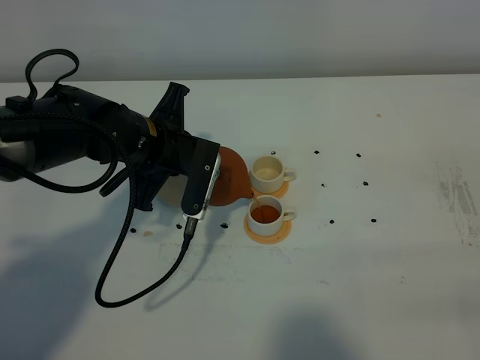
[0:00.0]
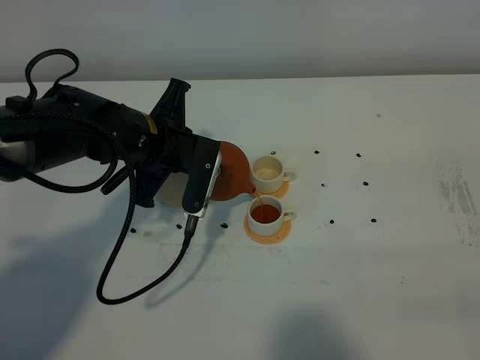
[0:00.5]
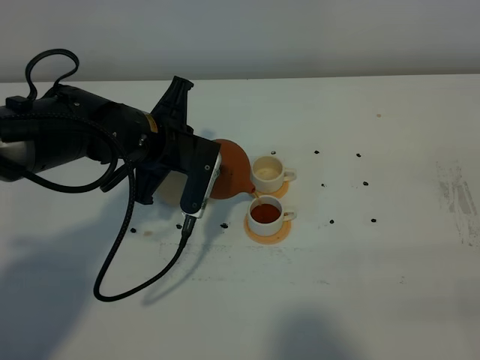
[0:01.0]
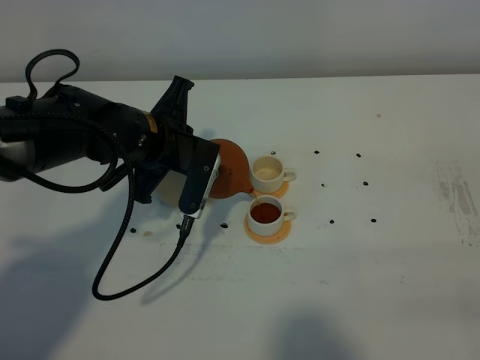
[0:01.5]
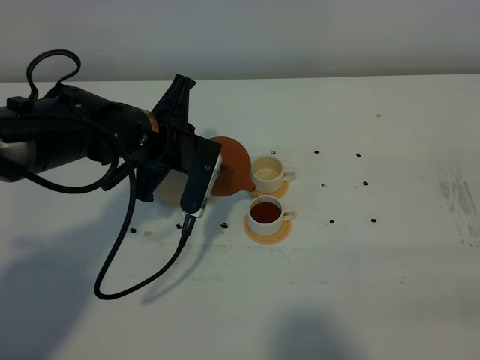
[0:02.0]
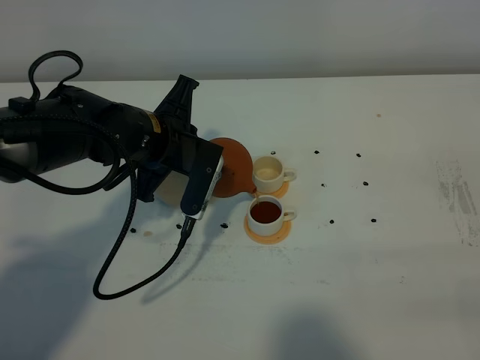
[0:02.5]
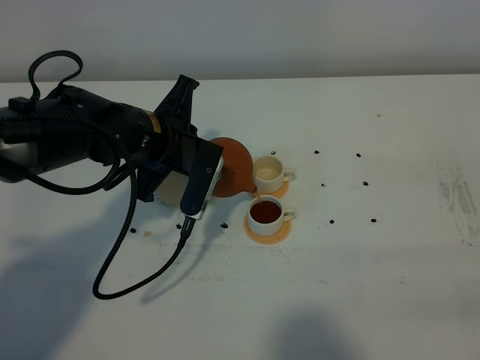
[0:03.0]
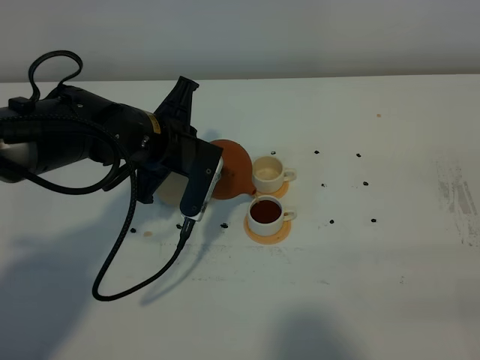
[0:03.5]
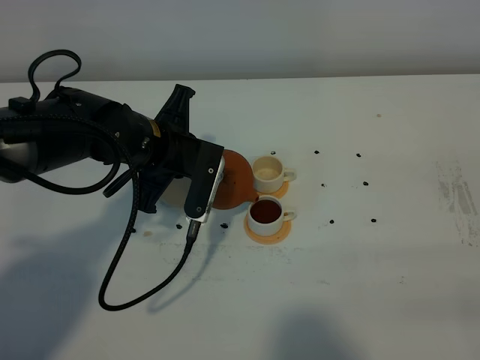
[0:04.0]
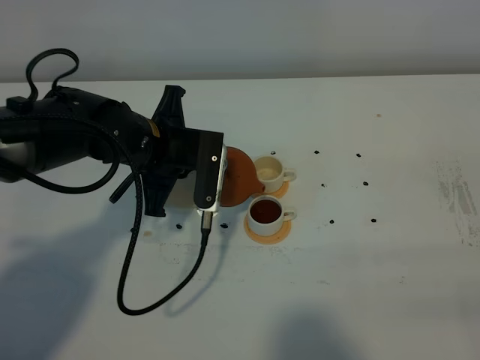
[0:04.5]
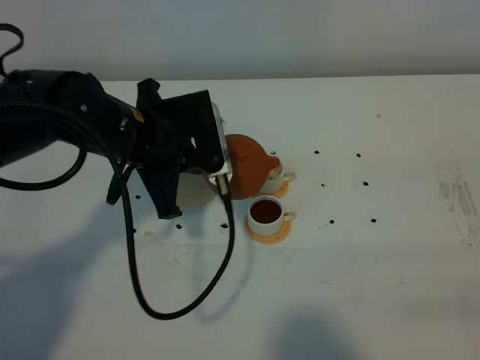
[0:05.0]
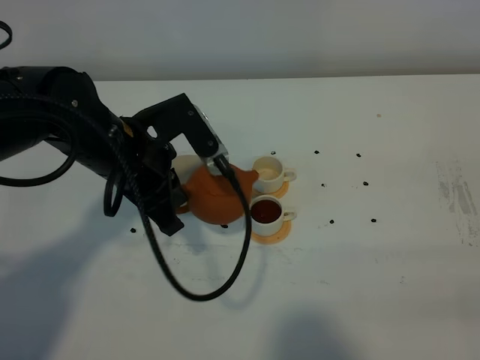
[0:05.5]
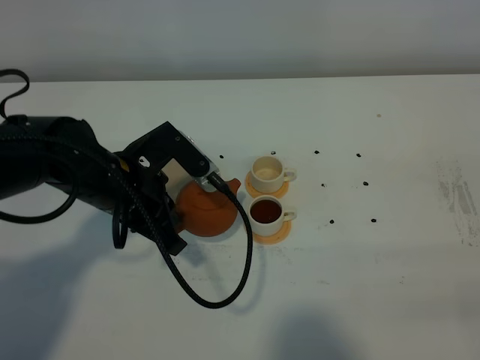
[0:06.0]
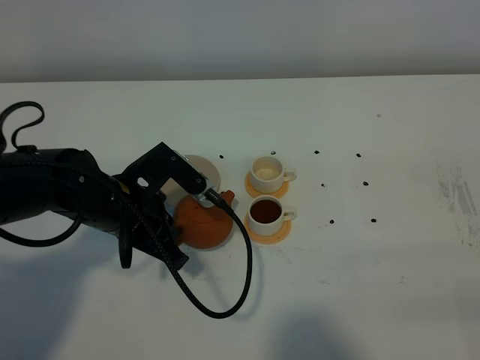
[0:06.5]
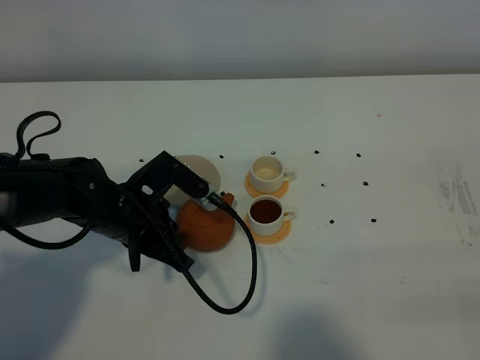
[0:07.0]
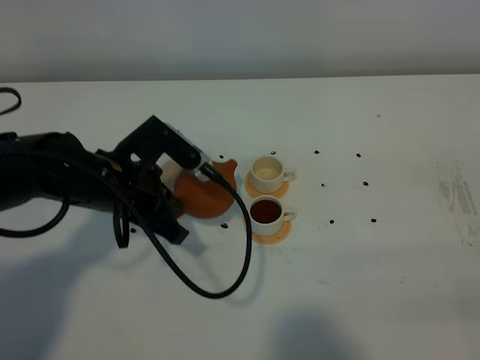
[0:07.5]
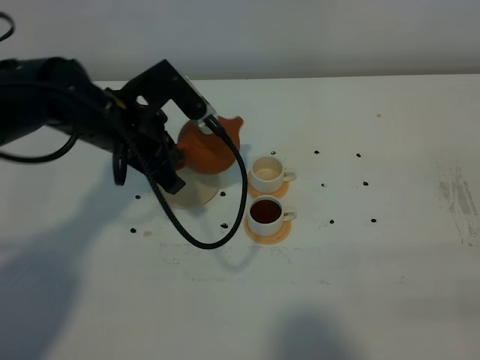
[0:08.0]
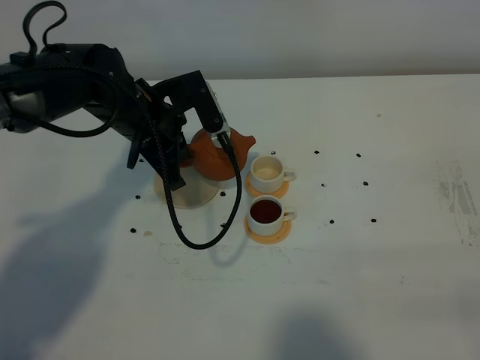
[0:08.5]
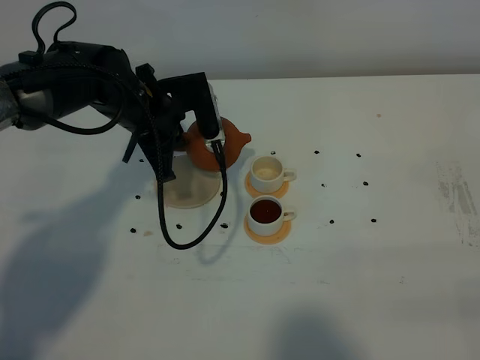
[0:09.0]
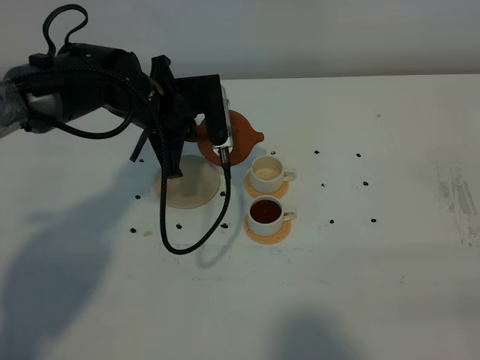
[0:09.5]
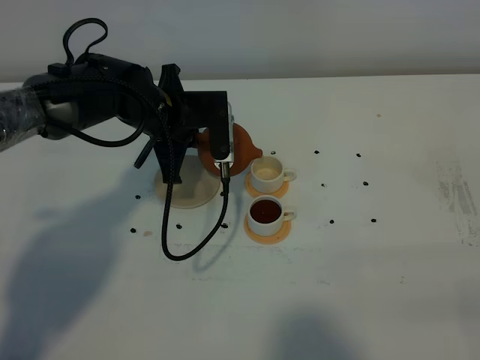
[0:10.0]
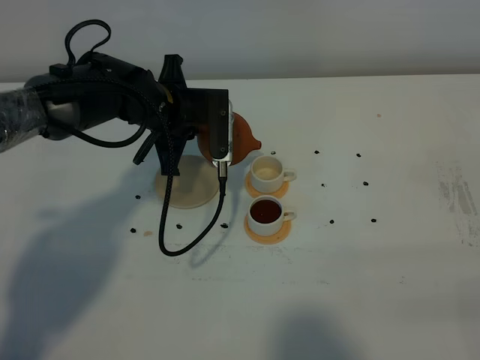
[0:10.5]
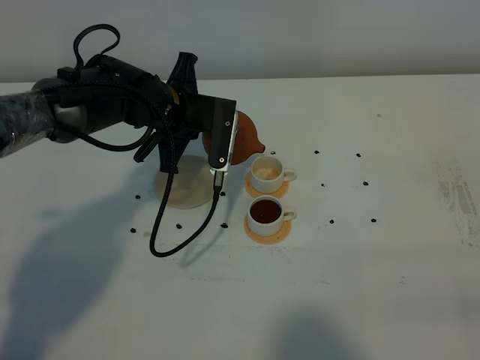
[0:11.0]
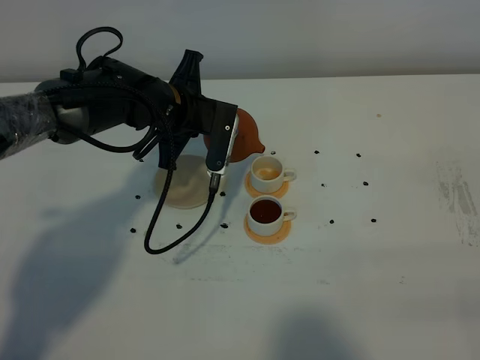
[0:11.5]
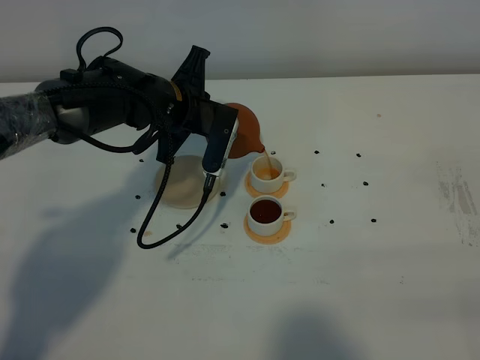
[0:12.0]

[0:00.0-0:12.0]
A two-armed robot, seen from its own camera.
Task of the whole recording: grasp the brown teapot and pour the tea into the two white teacups one by one, put the brown teapot back in its original place.
0:00.0 to 0:04.0: The grippers make only small movements.
0:04.0 to 0:06.0: The left gripper is displaced backward by about 5 cm.
0:06.0 to 0:08.0: The left gripper goes approximately 5 cm forward.
0:08.0 to 0:10.0: The left gripper shifts approximately 5 cm forward.

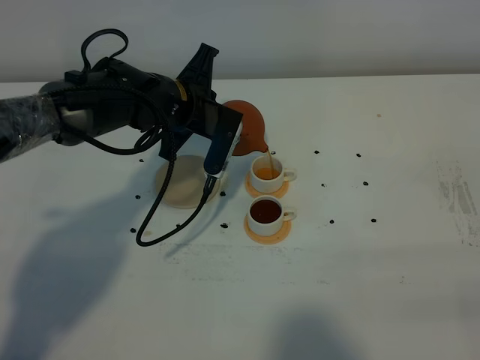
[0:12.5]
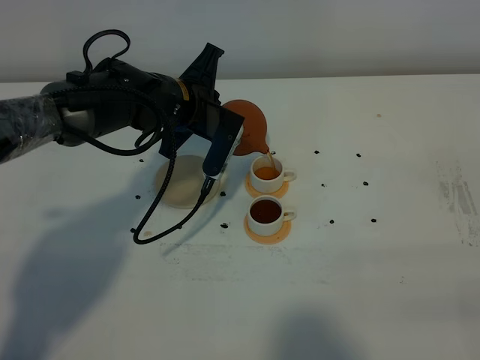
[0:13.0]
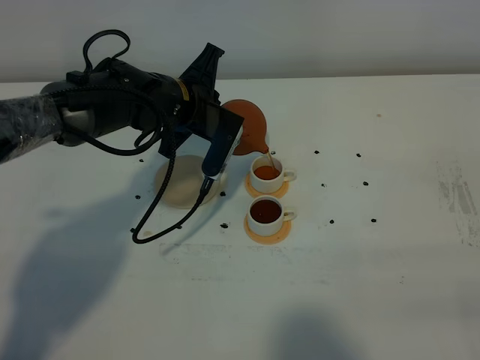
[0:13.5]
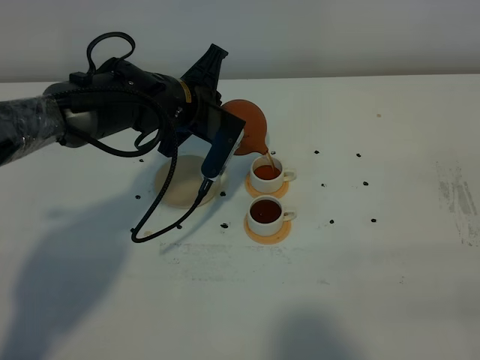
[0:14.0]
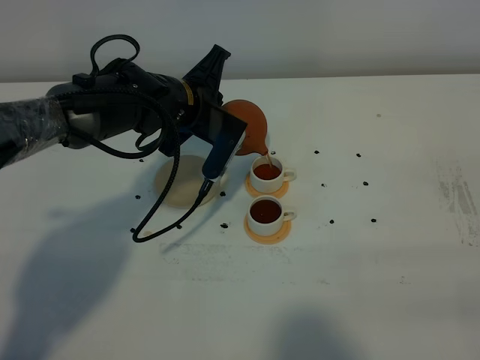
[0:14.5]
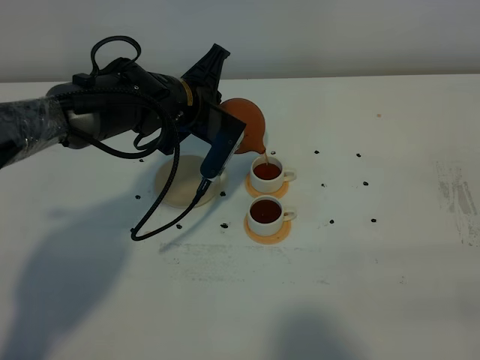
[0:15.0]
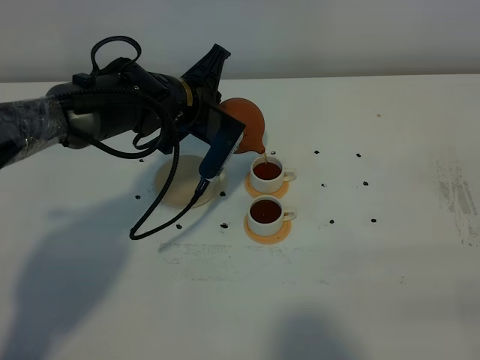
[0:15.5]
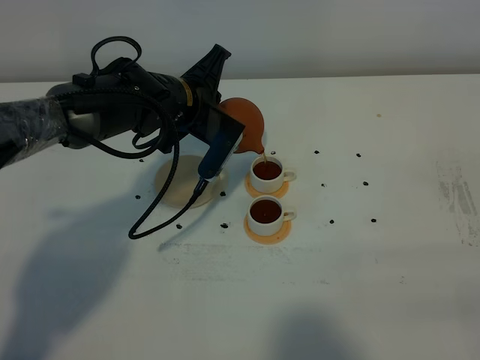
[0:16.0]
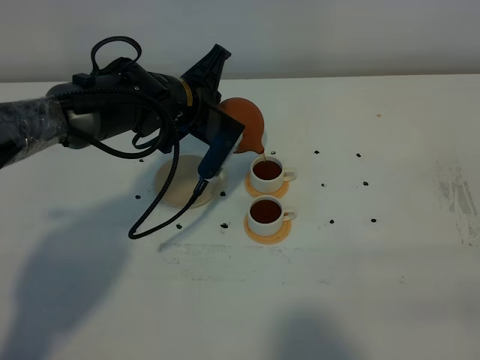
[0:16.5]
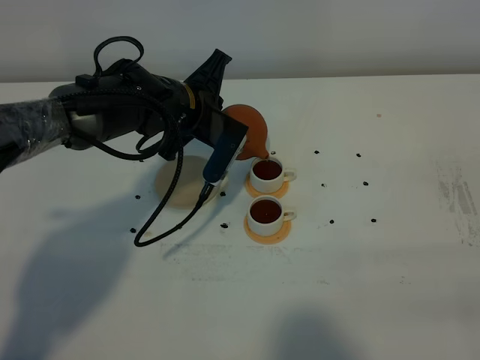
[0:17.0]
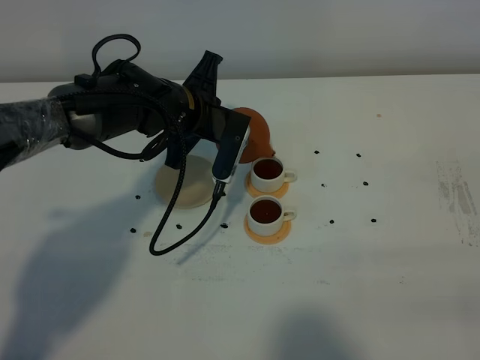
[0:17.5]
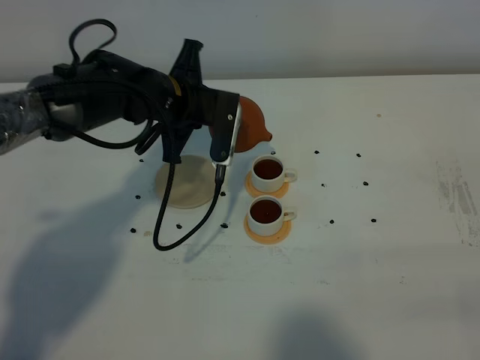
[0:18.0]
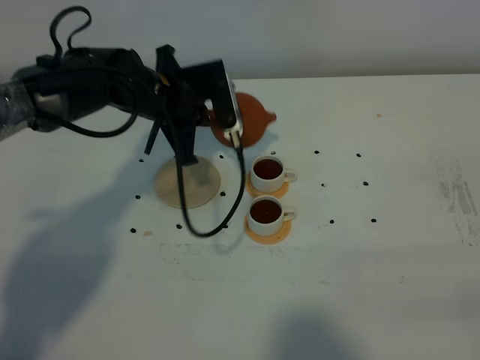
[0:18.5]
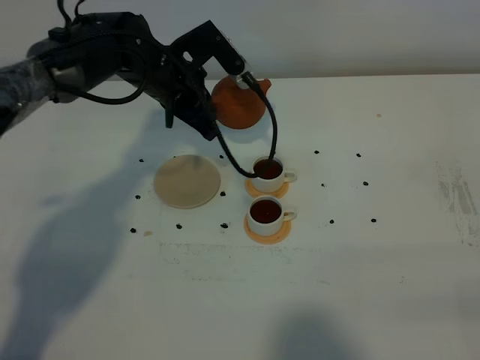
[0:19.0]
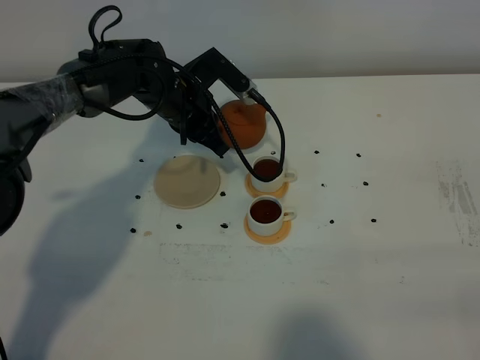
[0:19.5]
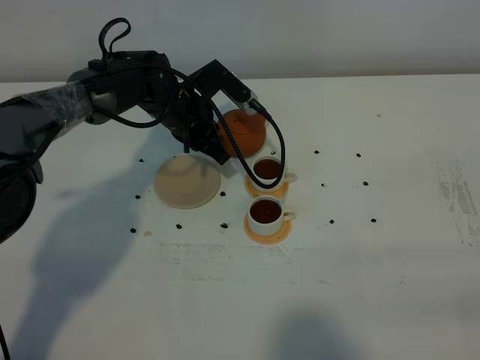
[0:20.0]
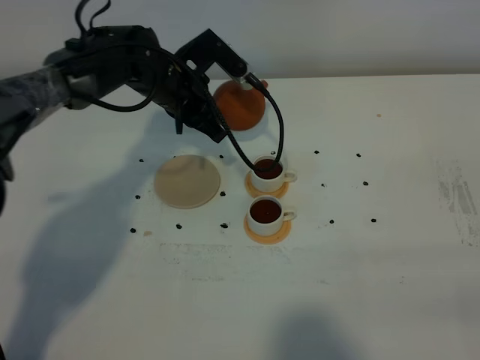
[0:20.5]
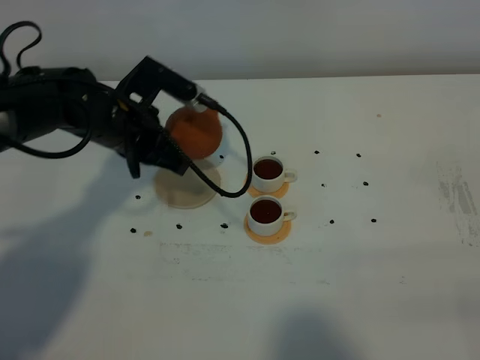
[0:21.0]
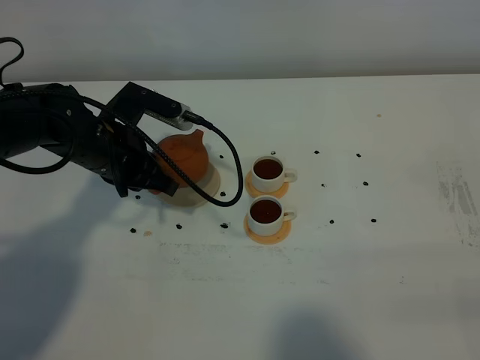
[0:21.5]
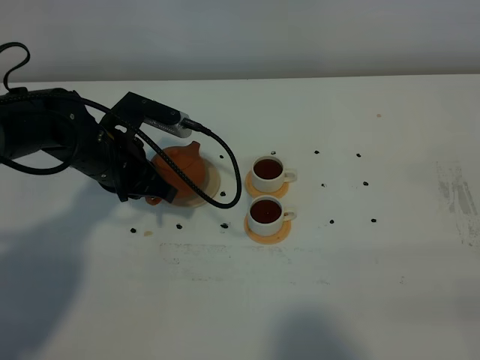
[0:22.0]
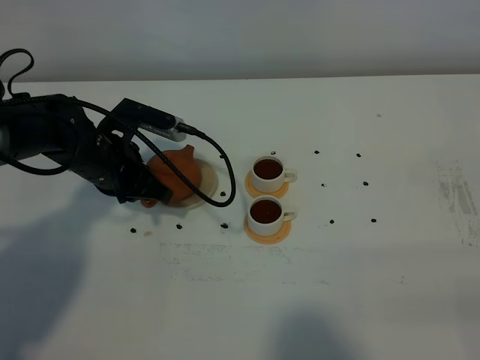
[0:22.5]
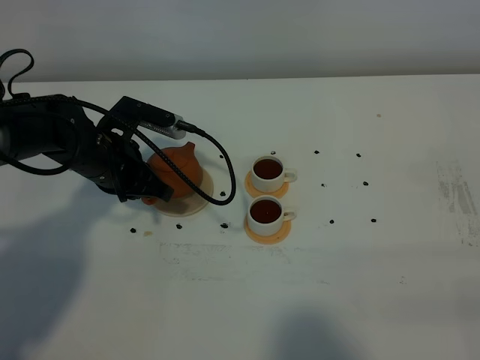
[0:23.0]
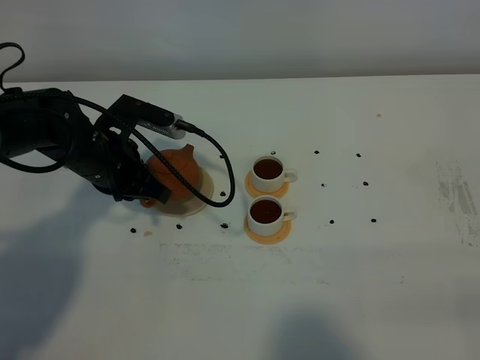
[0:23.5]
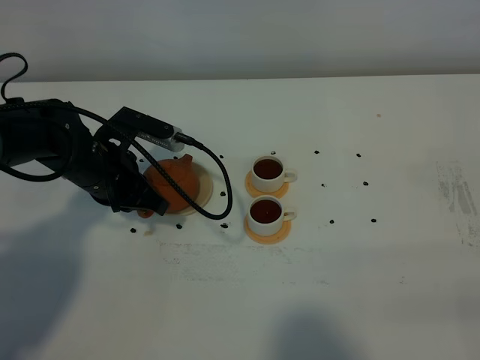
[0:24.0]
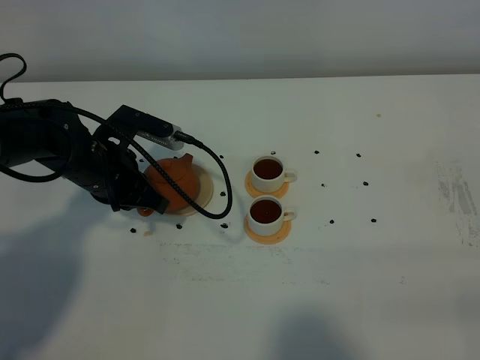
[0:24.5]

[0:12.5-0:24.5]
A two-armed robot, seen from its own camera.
Task of the whole recording: grasp the brown teapot and pour the tea into the two white teacups one by one, put the brown teapot back in its original place.
Step, 0:12.5 to 0:18.5: Pour tea into the teacup with the left gripper.
0:12.5 to 0:14.5: The grippers move only a little.
0:14.5 to 0:16.5: Both grippers stay about where they are.
0:20.5 to 0:22.5: The left gripper is displaced backward and to the left by approximately 10 cm.
0:22.5 to 0:24.5: Both grippers stay about where they are.

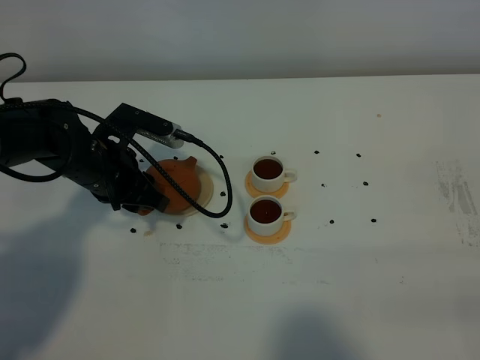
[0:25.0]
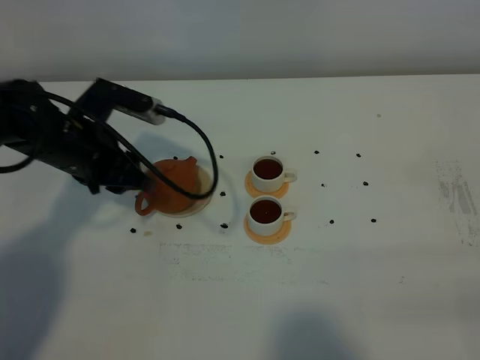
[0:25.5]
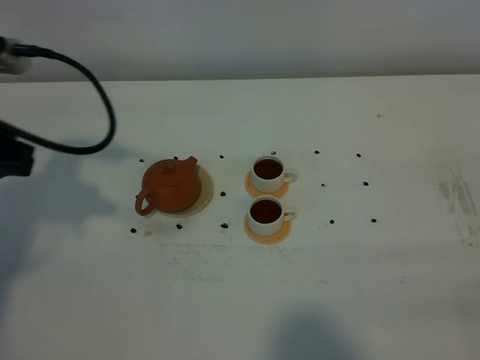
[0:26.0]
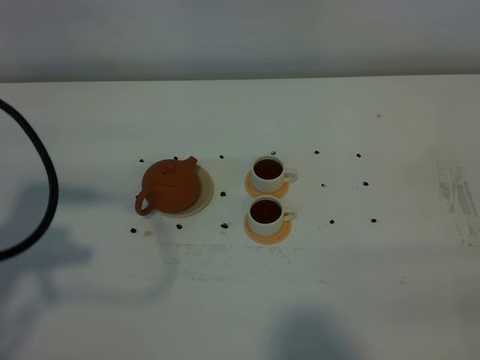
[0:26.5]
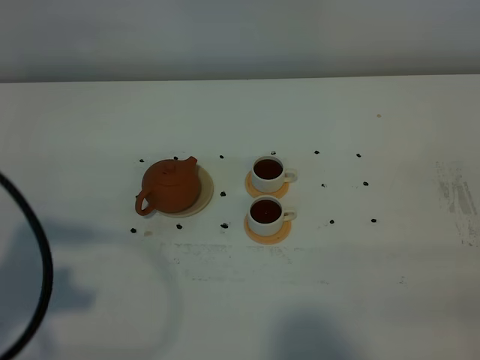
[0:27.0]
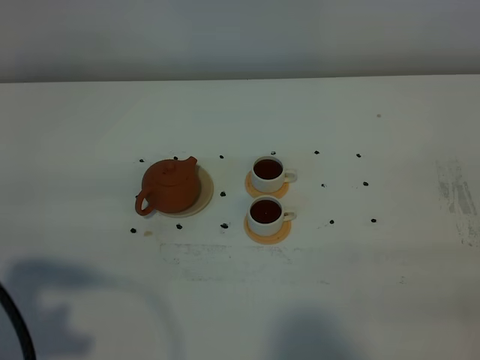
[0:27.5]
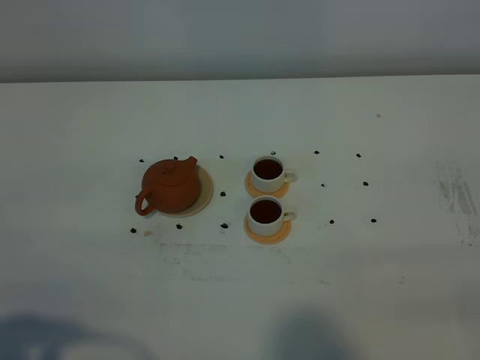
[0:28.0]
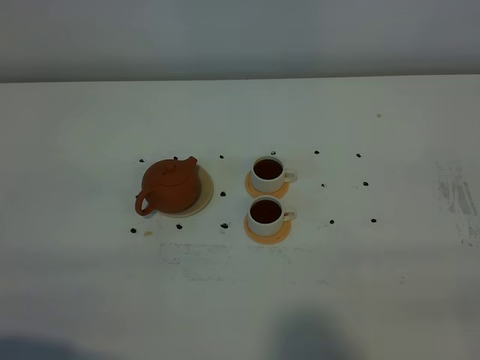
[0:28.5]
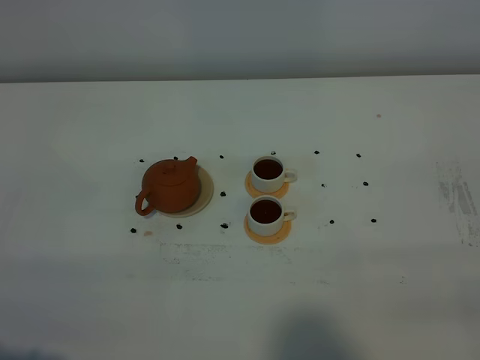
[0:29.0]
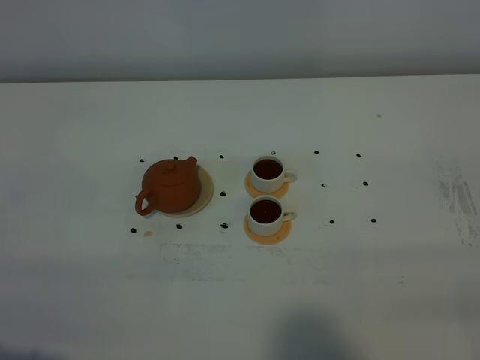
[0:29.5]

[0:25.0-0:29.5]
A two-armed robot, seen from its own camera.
Task of the whole recording: grasp the brown teapot and pour the tea into the two white teacups one by one, put the brown teapot back in its original place.
0:25.0 to 0:27.0: The left gripper goes roughly 30 cm backward, upward and to the left.
0:27.0 to 0:29.5: The left gripper is displaced backward and downward by some 15 cm.
